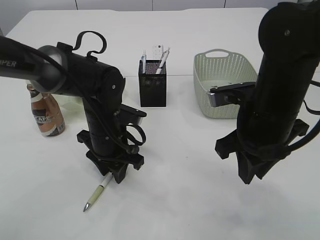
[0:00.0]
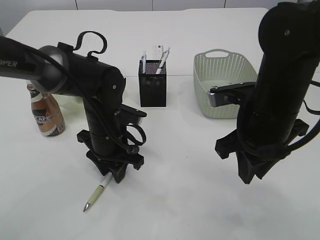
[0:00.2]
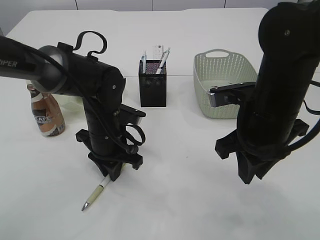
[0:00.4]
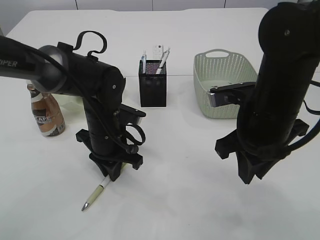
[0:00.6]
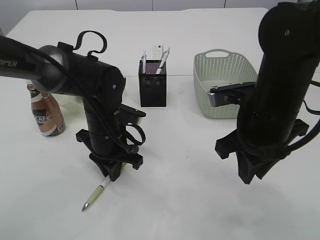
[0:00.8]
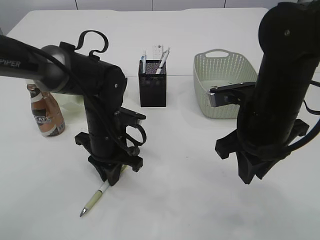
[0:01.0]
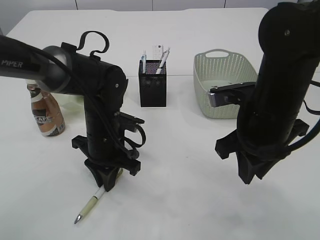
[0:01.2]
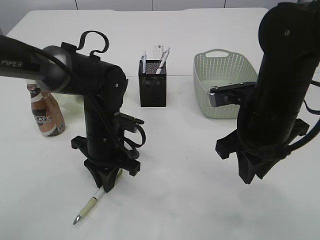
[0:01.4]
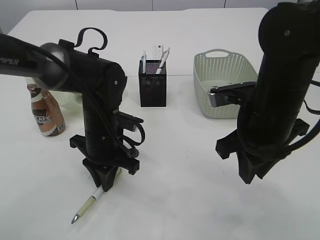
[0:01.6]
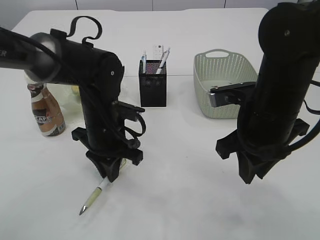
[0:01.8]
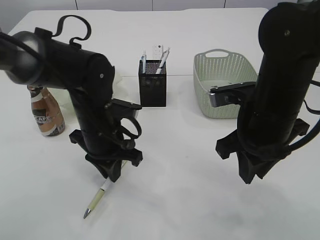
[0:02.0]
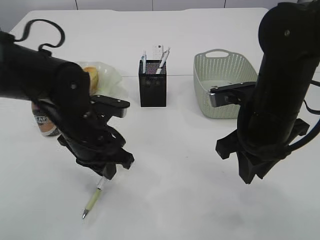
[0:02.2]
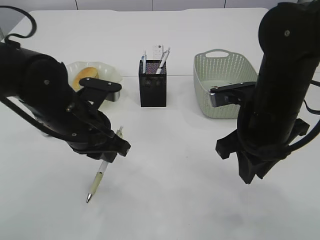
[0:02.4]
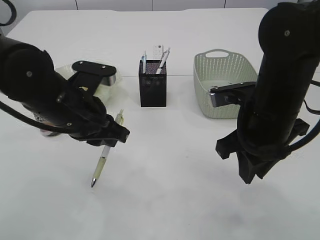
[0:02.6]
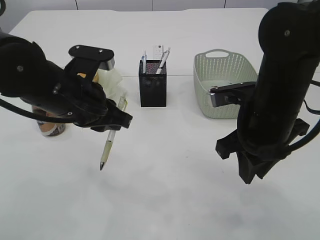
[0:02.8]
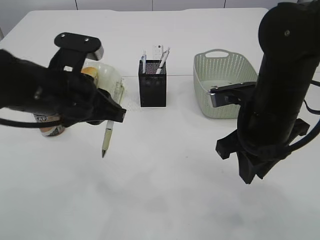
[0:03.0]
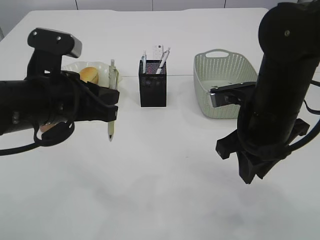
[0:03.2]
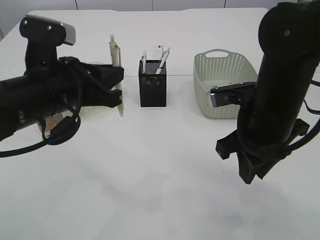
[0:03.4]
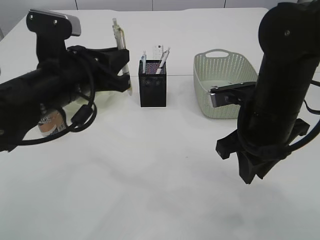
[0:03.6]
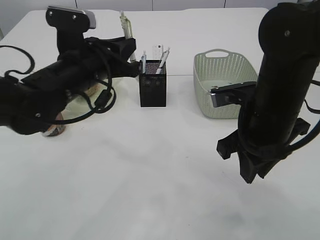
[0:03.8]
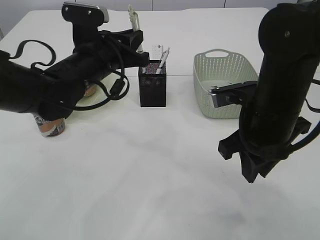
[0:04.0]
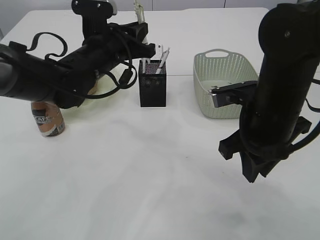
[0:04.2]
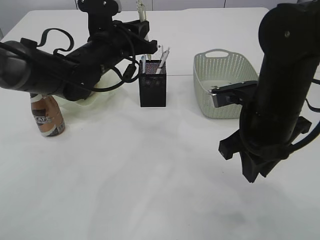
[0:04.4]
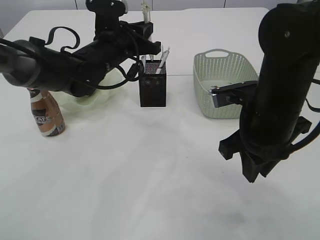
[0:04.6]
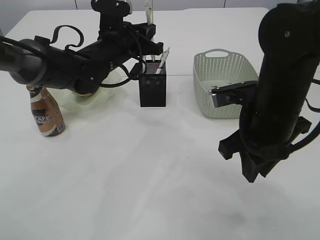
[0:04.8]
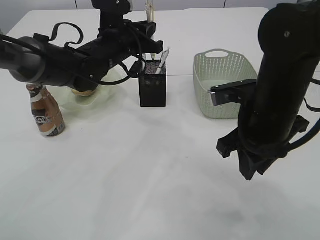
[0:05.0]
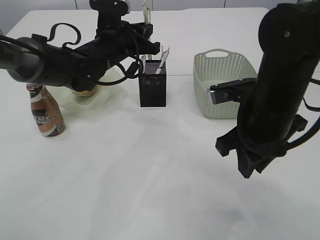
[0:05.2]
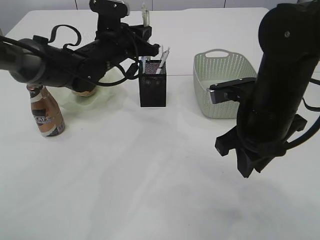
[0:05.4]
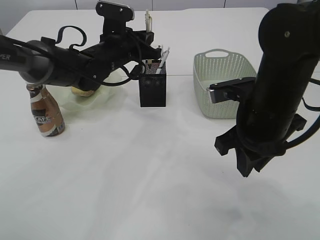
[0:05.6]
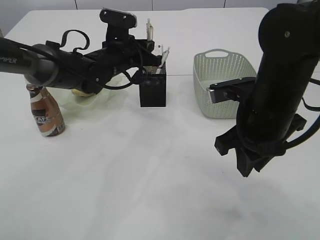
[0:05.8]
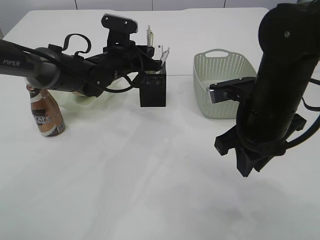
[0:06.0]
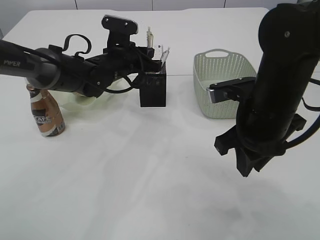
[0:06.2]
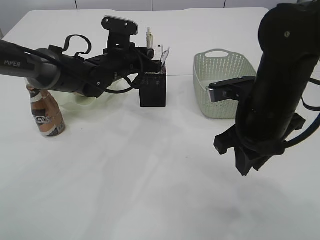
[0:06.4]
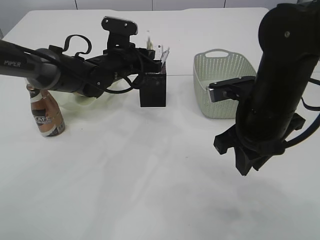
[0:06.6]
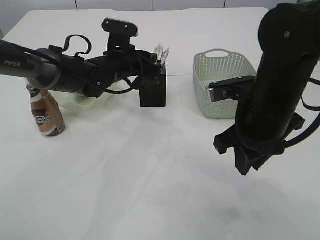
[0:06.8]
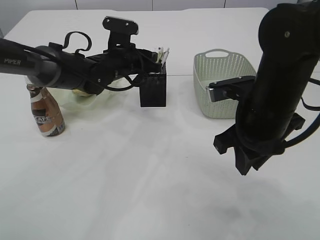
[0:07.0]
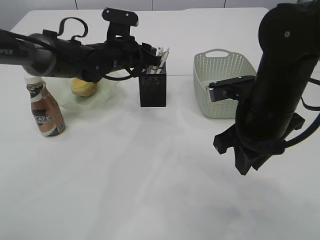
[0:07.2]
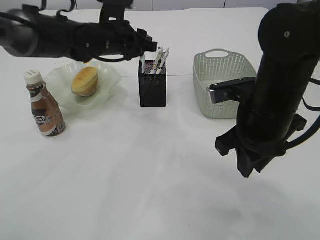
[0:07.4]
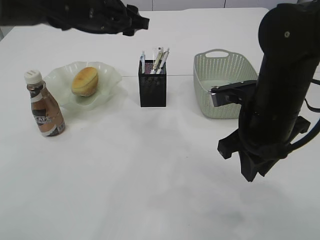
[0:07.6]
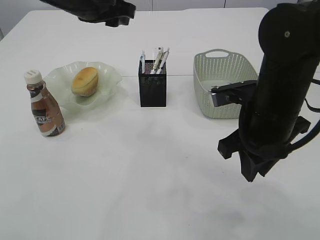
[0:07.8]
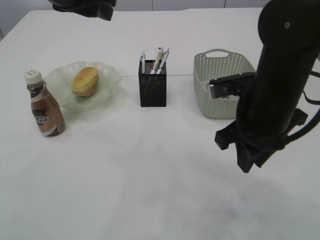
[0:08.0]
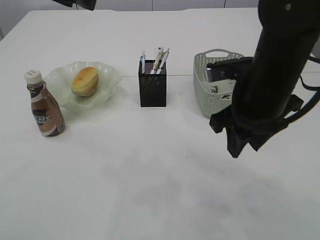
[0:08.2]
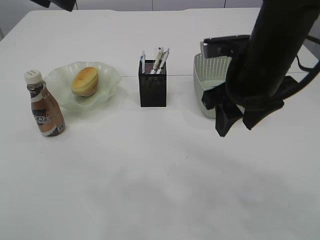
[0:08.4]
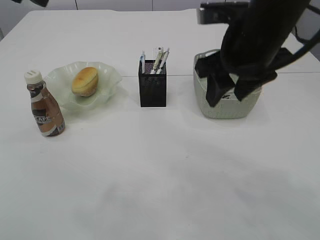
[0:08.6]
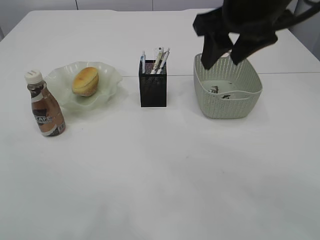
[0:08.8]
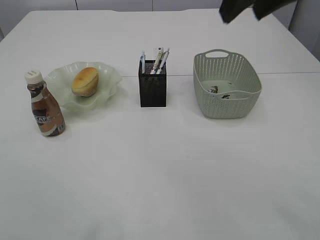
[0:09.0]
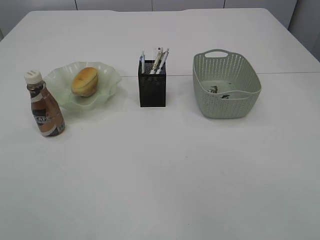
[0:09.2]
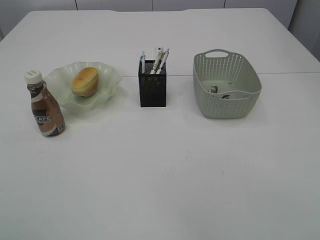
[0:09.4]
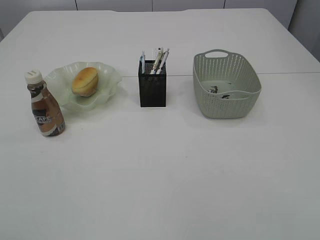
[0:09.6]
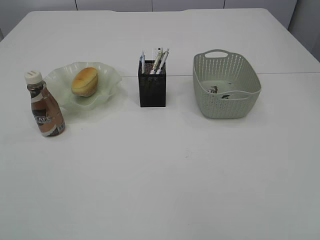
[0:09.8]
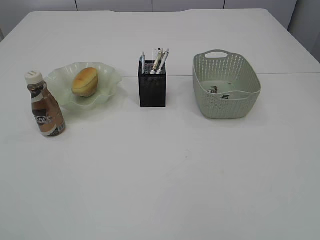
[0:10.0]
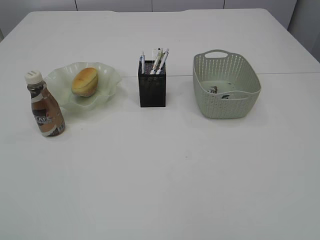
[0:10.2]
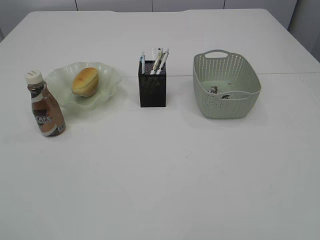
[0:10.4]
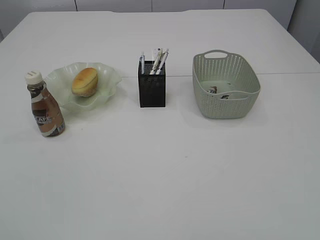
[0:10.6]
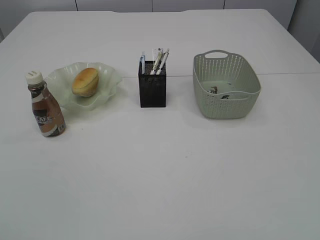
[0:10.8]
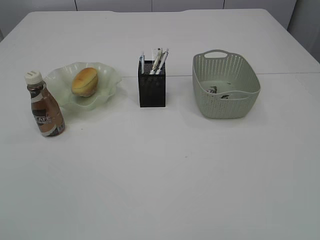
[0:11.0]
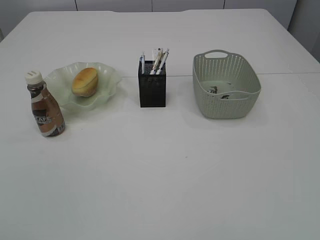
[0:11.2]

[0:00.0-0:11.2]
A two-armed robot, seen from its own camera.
Step, 0:00.0 to 0:02.2: Pick up the pen with left arm.
Step, 0:02.4 to 0:07.6: Place the pen into the pen holder.
0:00.0 to 0:01.6: The left gripper closes.
0:01.6 to 0:03.2: The left gripper goes roughly 15 cm upward and backward.
0:03.2 to 0:04.8: The left gripper shifts roughly 20 cm forward.
0:04.8 to 0:06.4: The left gripper ends up about 5 cm from where it was.
0:06.4 to 0:08.0: The left gripper heads upward and backward, covering some 20 cm, and opens.
0:08.0 to 0:09.6: The left gripper shifts about 30 cm backward, upward and to the left; the right gripper moves upward and backward, some 30 cm, and opens its fingers.

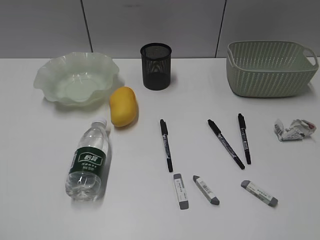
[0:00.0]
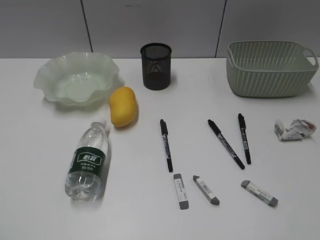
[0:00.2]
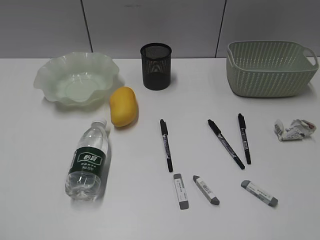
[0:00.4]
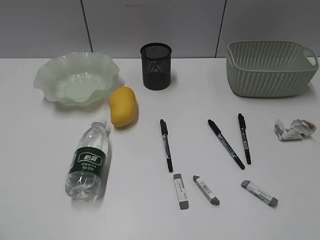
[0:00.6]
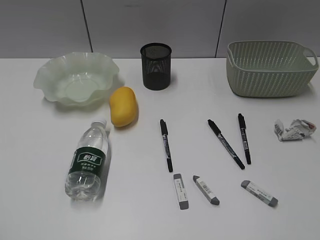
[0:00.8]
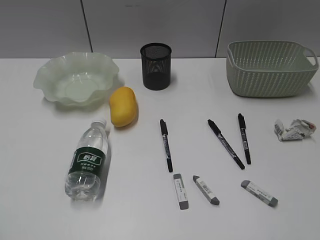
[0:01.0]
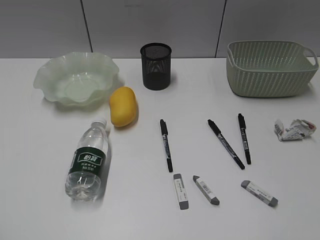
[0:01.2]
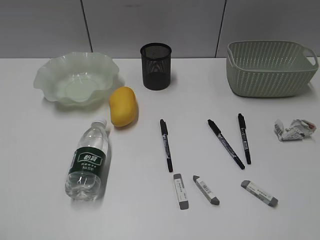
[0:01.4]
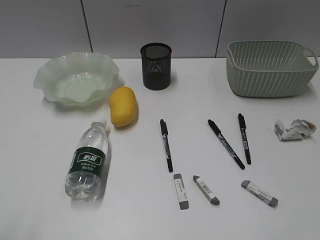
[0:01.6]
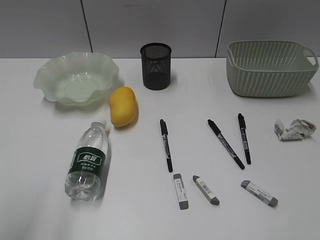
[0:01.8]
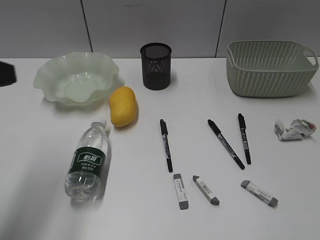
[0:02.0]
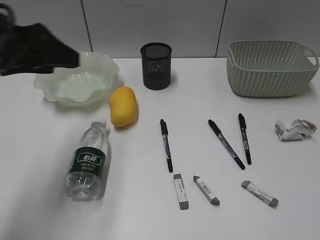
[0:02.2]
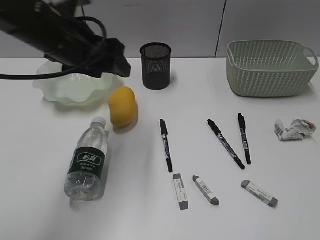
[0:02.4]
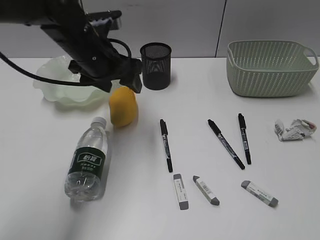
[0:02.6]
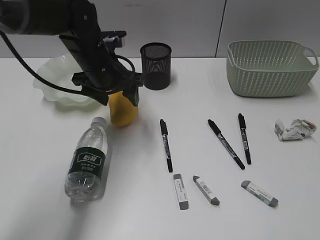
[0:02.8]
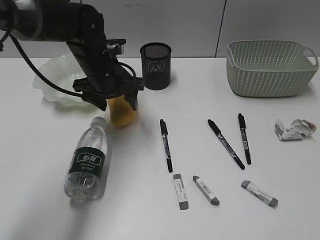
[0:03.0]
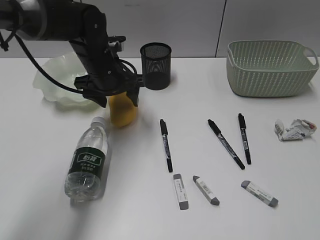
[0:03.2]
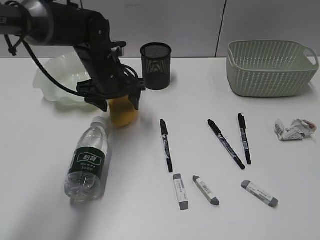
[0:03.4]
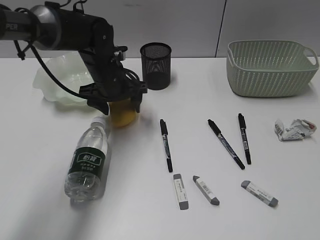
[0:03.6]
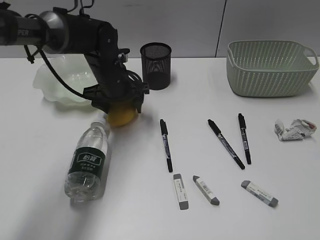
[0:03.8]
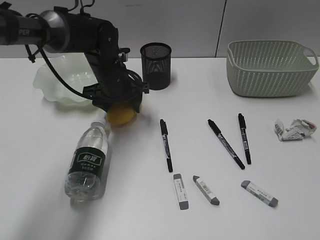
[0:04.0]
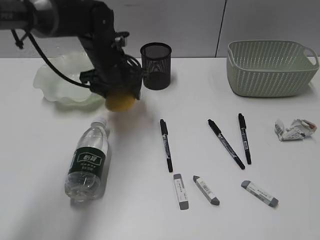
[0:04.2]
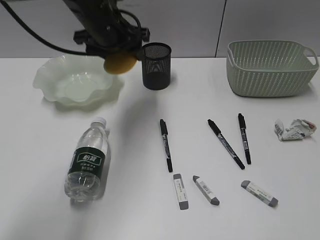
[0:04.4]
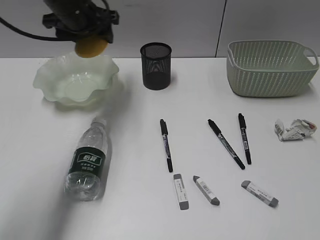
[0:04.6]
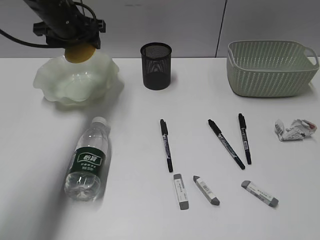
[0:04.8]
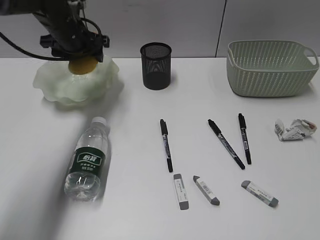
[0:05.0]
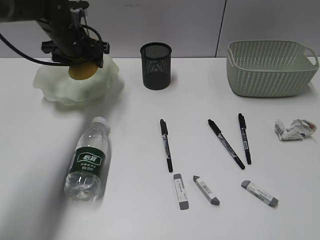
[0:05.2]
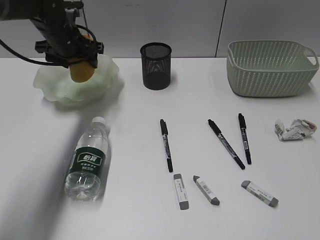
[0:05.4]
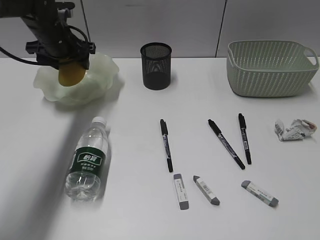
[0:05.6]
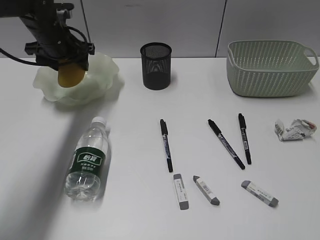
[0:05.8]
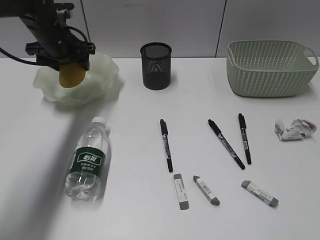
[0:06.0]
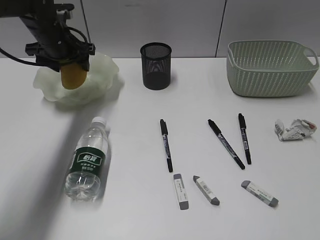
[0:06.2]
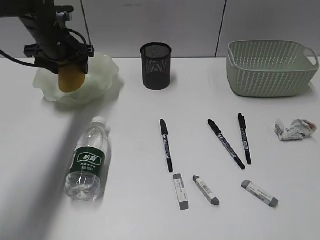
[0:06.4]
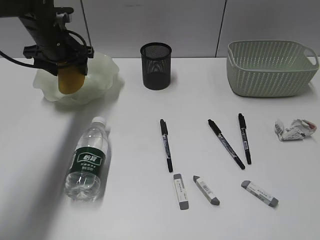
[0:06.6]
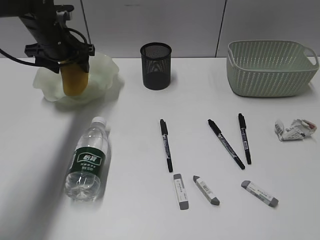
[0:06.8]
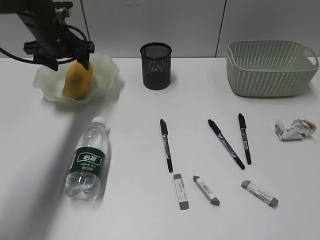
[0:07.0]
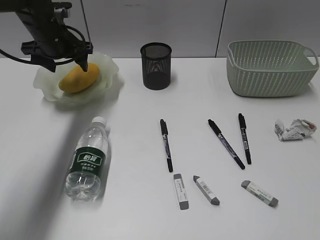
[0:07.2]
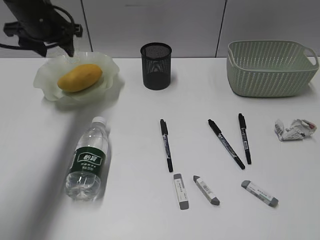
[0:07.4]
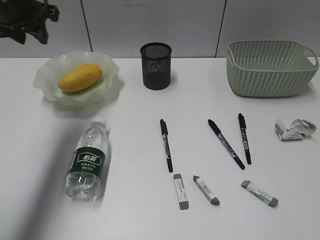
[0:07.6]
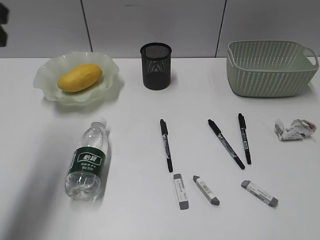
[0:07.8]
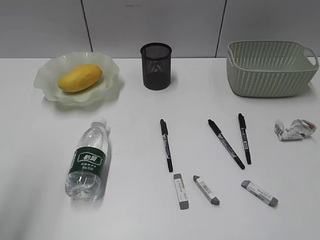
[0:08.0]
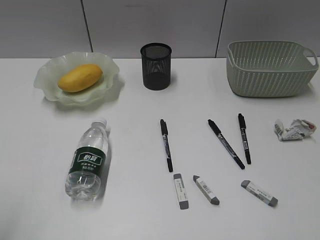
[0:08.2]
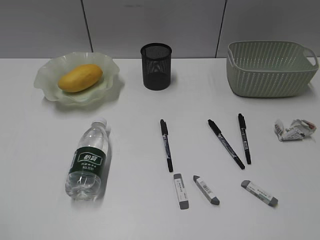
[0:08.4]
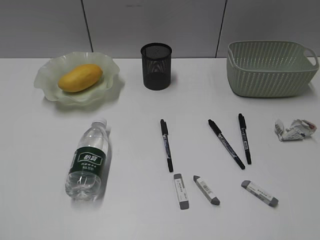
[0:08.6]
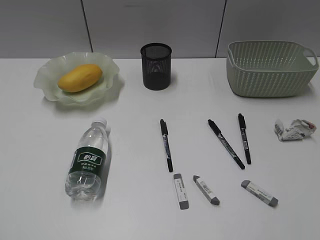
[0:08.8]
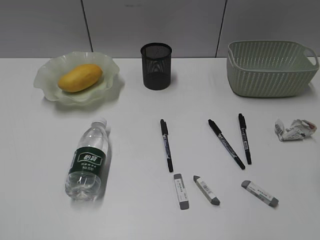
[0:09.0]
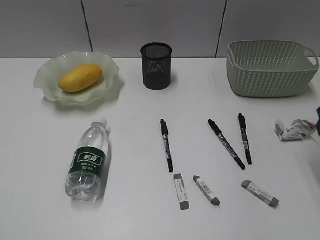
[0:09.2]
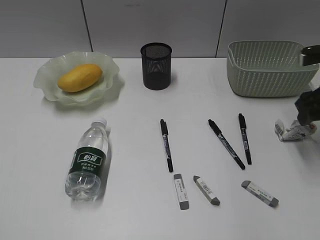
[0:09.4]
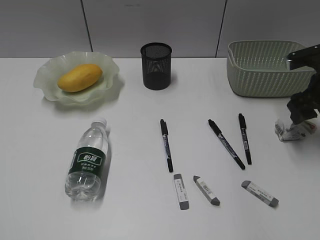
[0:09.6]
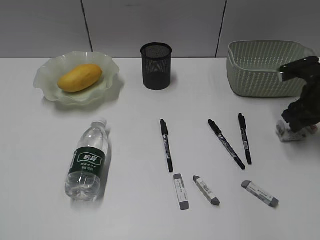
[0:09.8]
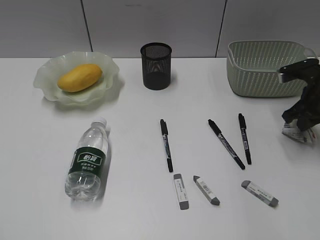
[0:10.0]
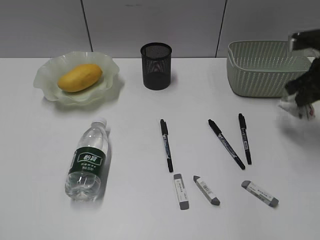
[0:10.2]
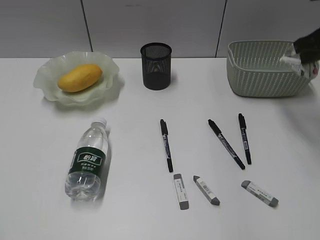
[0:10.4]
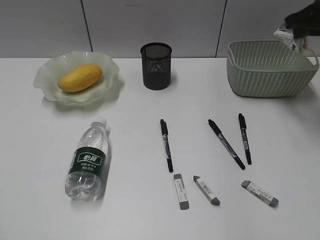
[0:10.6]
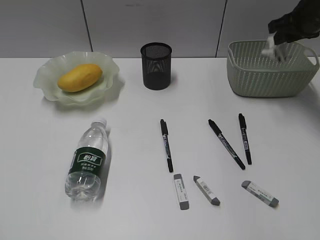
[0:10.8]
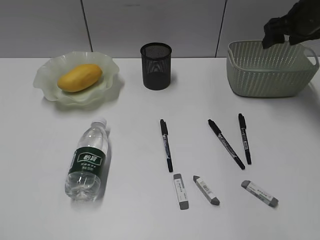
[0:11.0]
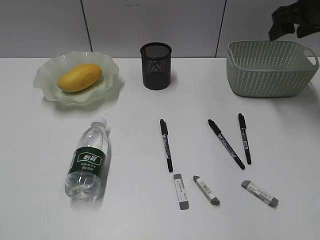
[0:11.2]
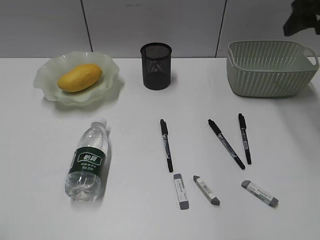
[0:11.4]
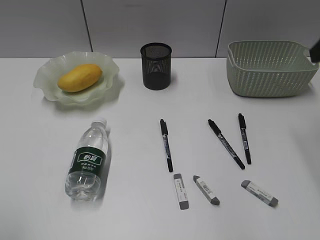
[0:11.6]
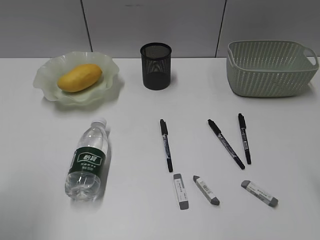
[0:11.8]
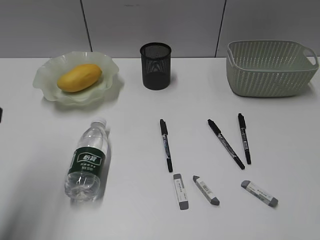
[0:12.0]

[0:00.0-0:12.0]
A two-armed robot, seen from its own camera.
Step, 0:01.6 to 0:04.2: Grasp the mango with left gripper.
Step, 0:04.4 to 0:07.2: Place the mango in the plate with left gripper.
Step, 0:07.4 to 0:10.0: Grasp the waste paper with right gripper.
Step, 0:10.2 to 0:11.2: Place the waste paper in the basket with right gripper.
0:01.6 to 0:03.0: The left gripper moves forward and to the right, approximately 40 cm, and opens its fingers.
0:03.0 to 0:04.4: The left gripper is displaced upward by approximately 5 cm.
0:04.4 to 0:06.0: The left gripper shifts approximately 15 cm to the left and forward.
0:06.0 to 0:07.6: The left gripper heads upward and backward, covering some 15 cm, and closes up.
0:07.6 to 0:09.0: The right gripper travels forward by approximately 20 cm, and opens up. Meanwhile the left gripper shifts some 40 cm backward.
0:09.0 to 0:10.4: The right gripper goes some 20 cm forward, and closes up.
0:10.4 to 0:12.0: The left gripper heads forward, covering about 20 cm; the right gripper travels backward by some 25 cm, and opens up.
